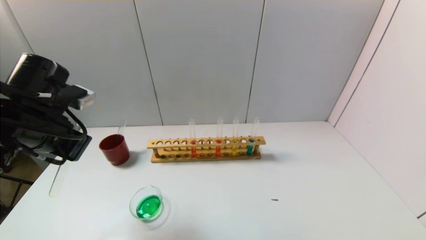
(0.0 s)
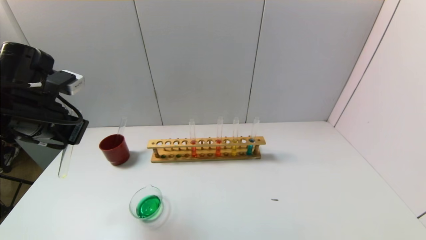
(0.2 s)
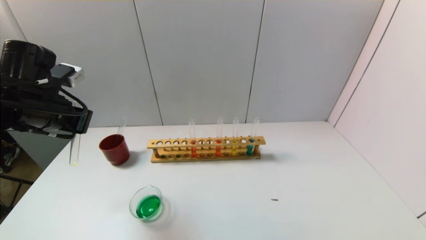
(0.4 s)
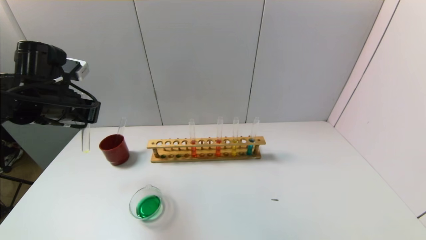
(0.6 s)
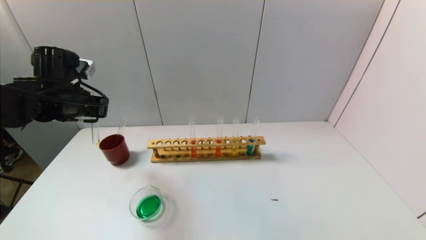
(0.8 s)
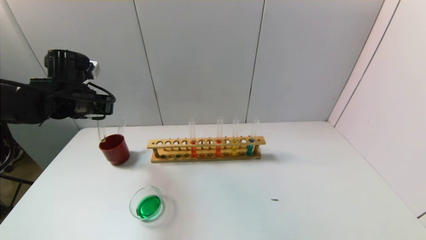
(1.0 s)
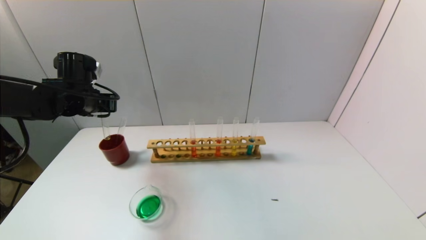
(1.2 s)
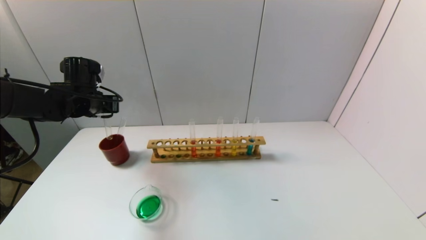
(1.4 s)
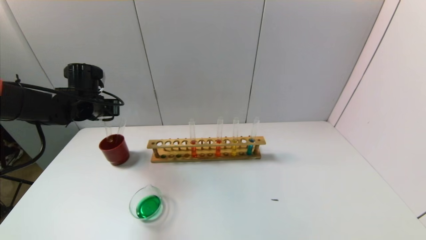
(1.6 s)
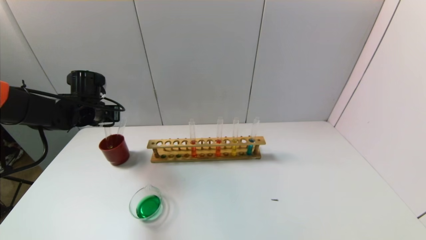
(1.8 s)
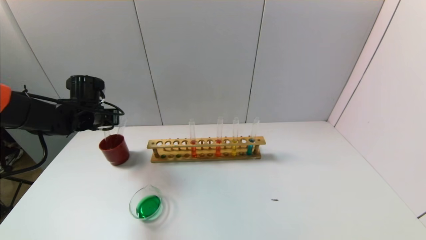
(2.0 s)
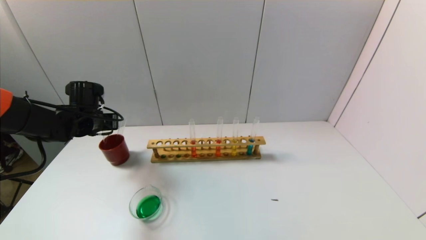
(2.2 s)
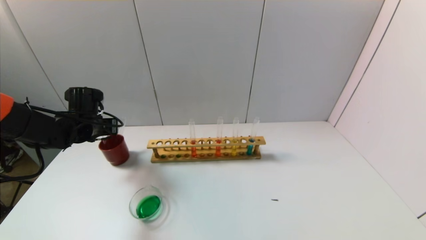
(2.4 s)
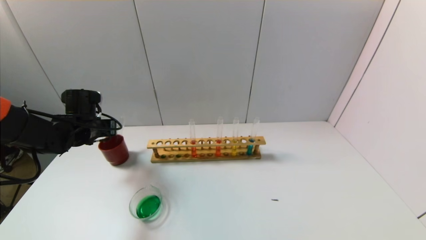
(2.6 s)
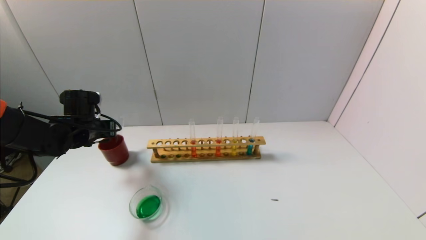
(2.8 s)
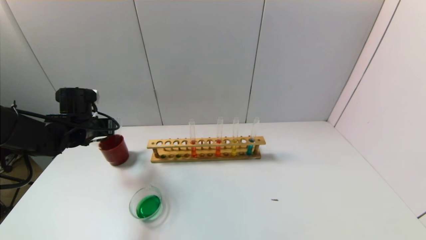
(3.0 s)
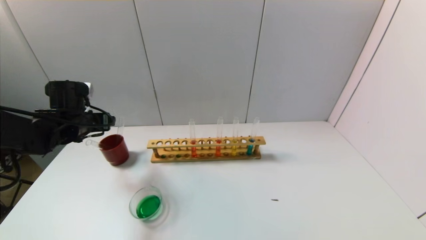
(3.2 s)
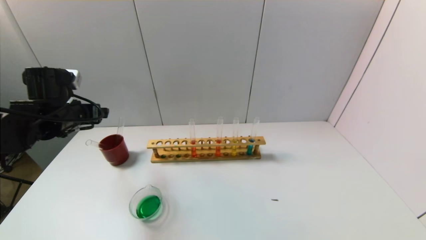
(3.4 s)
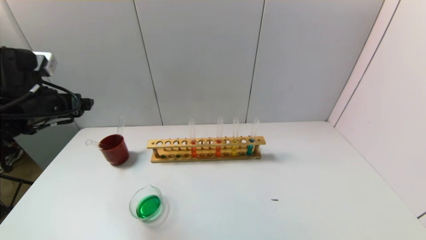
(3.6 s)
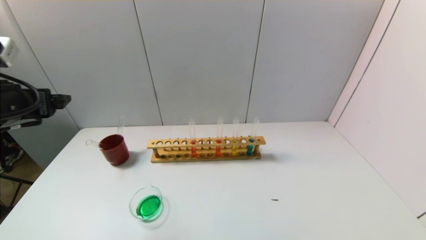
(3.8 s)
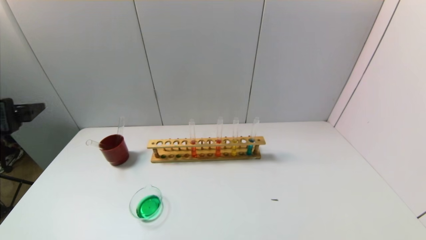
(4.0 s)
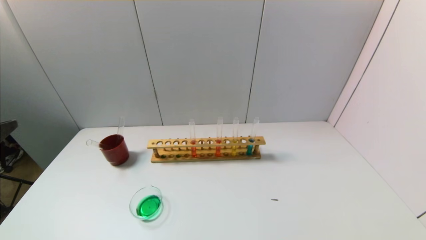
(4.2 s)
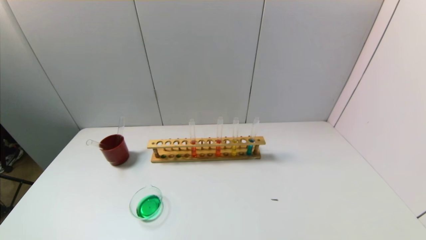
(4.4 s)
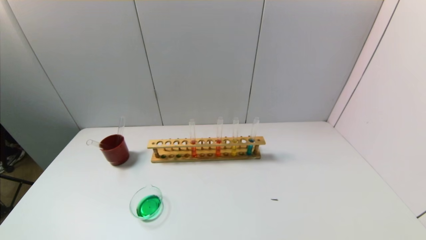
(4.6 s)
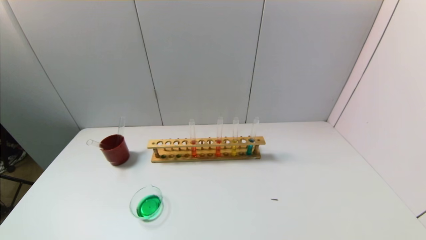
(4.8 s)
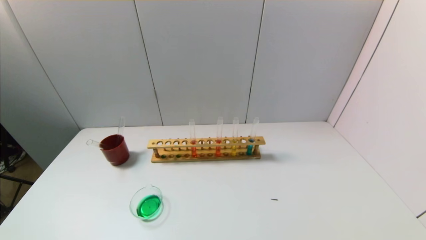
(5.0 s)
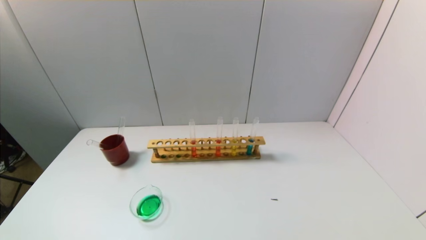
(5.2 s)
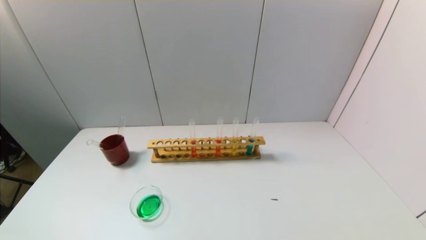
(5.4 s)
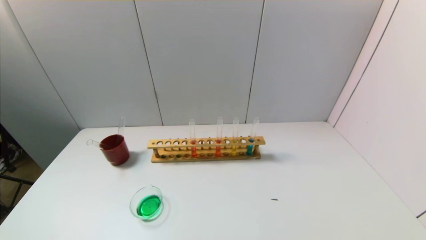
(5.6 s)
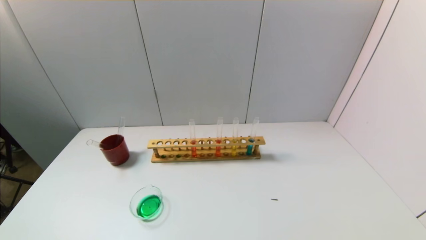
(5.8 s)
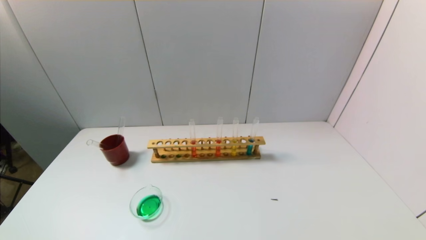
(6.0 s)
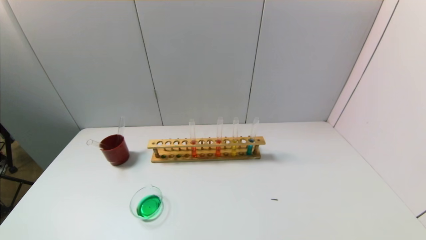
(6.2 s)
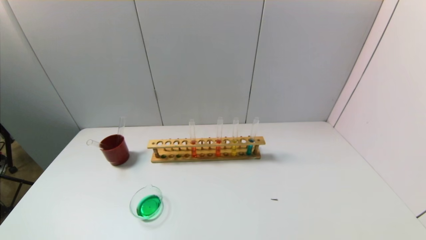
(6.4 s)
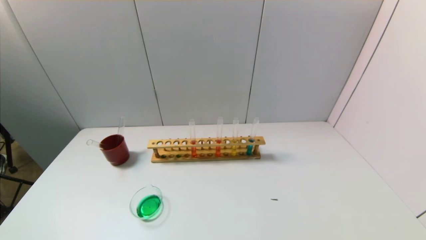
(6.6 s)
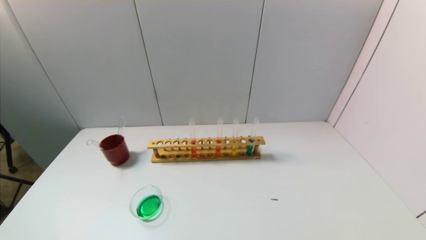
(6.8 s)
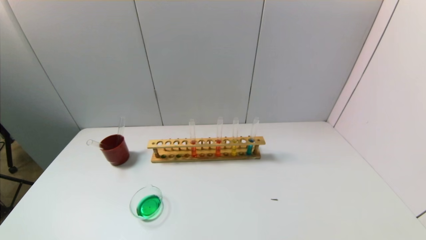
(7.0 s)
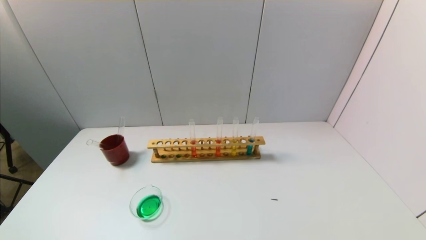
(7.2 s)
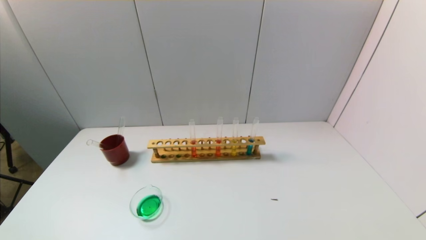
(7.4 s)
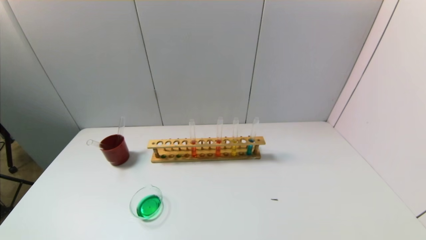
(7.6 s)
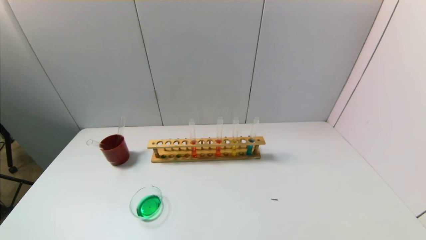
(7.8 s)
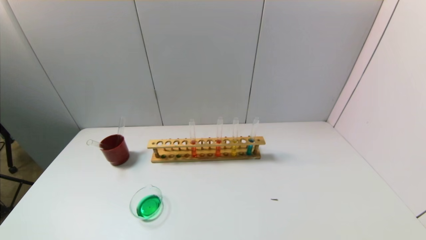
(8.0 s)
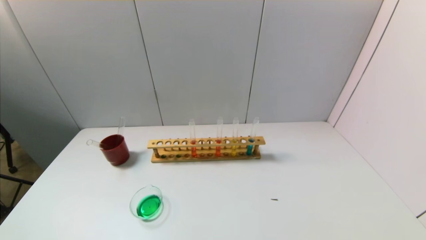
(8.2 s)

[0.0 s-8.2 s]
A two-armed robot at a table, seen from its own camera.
Task of the whole recording: pick up the test tube with yellow pigment and the test tube with blue pigment by grippers and pour them into the beaker.
Step, 0.0 to 3.2 s: Place the test tube into the brown cup with the left gripper.
0.0 to 1.6 s: The left gripper heads forward, covering approximately 15 cm.
1.6 to 3.2 s: The left gripper is displaced backward by some 5 cm, and opens.
3.2 to 5.0 s: The left gripper travels backward by about 40 cm.
